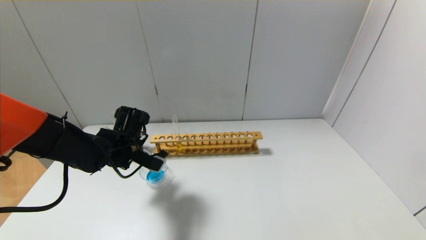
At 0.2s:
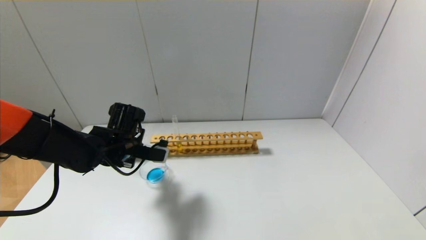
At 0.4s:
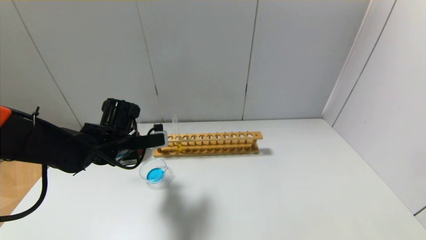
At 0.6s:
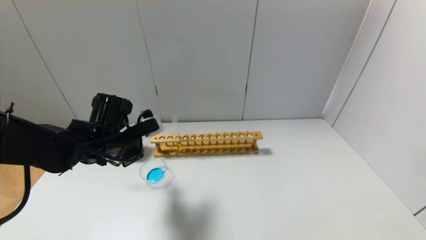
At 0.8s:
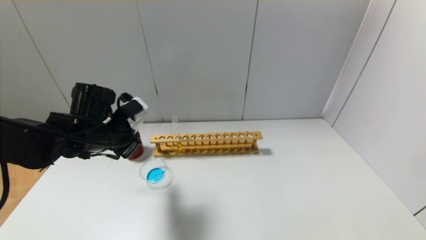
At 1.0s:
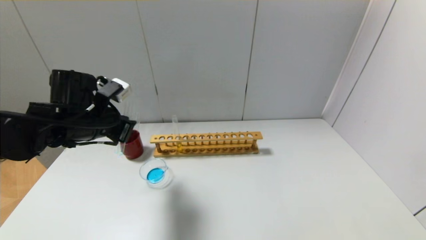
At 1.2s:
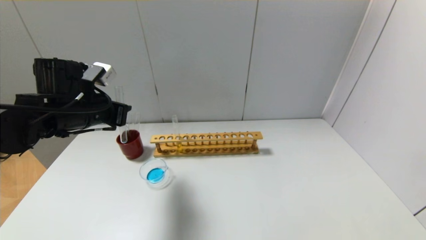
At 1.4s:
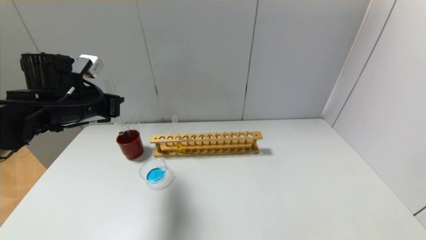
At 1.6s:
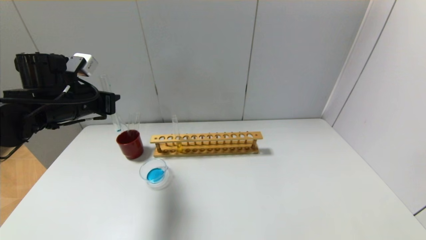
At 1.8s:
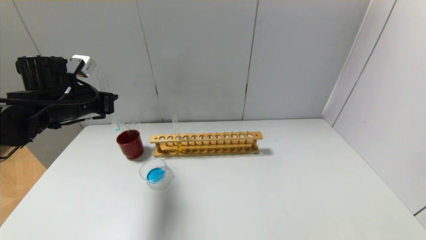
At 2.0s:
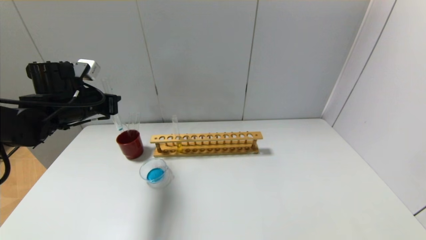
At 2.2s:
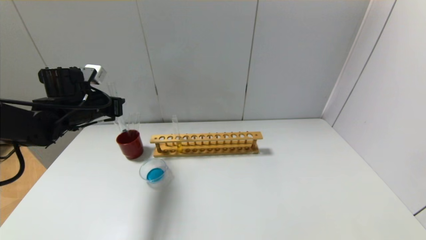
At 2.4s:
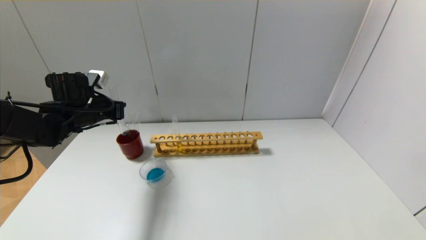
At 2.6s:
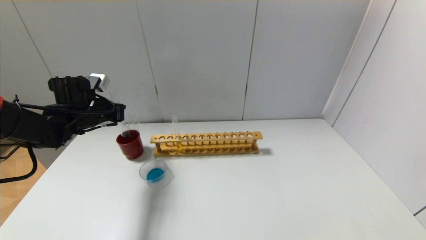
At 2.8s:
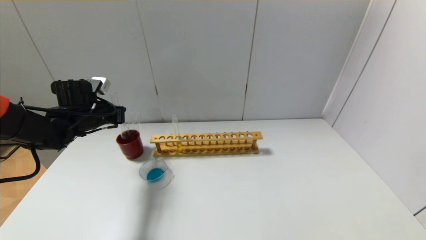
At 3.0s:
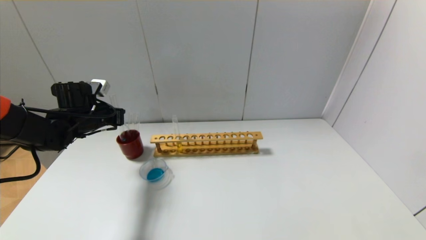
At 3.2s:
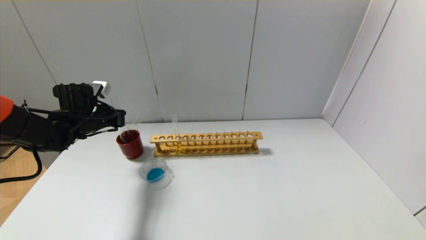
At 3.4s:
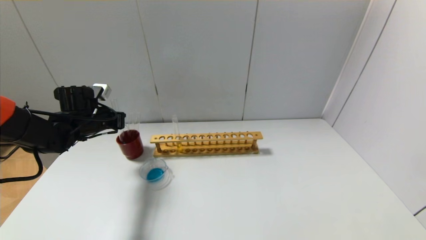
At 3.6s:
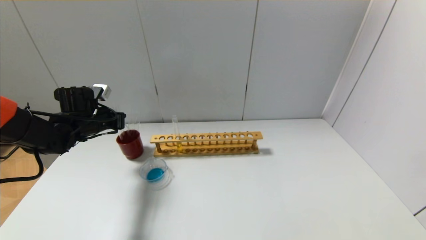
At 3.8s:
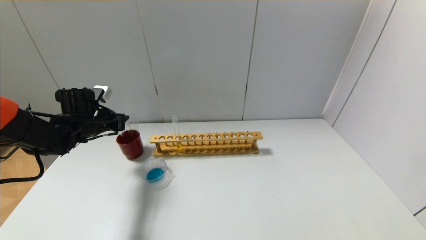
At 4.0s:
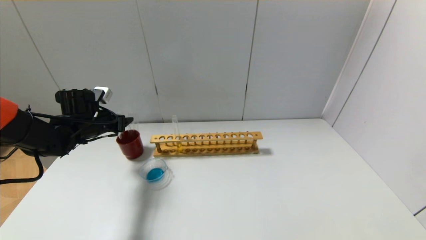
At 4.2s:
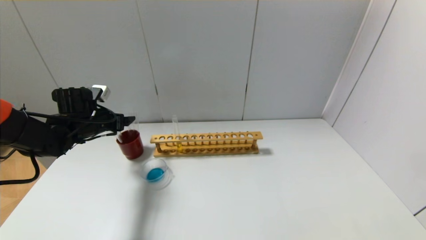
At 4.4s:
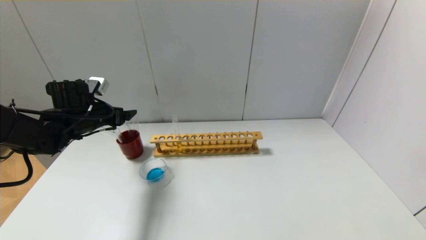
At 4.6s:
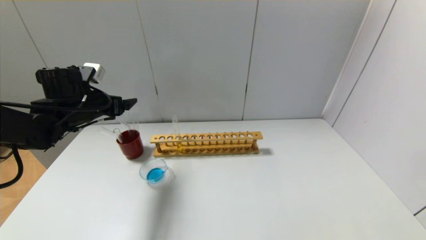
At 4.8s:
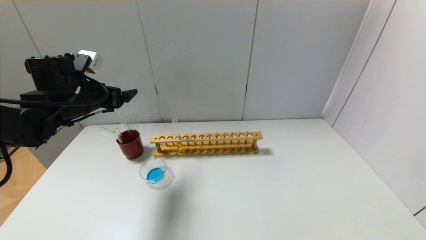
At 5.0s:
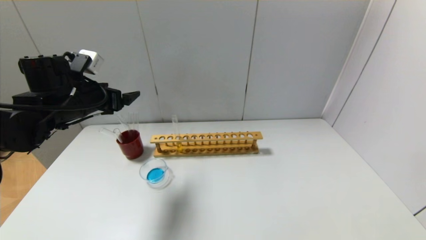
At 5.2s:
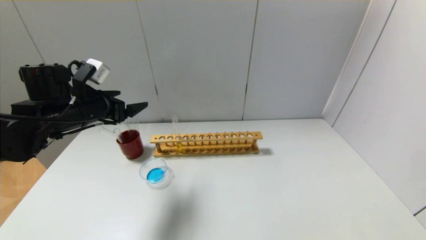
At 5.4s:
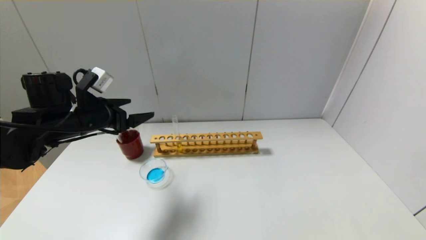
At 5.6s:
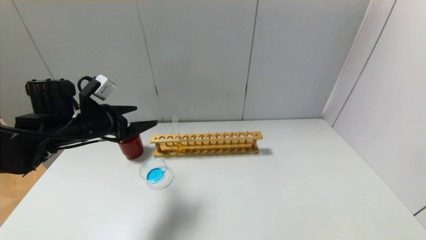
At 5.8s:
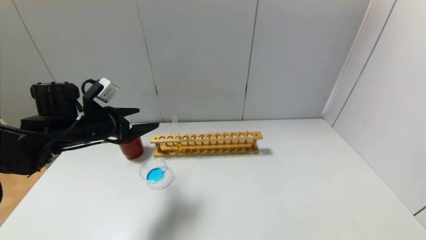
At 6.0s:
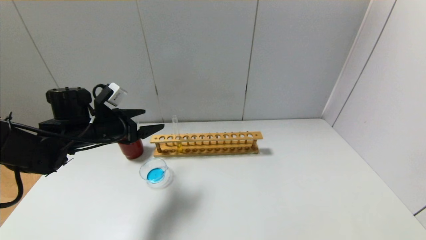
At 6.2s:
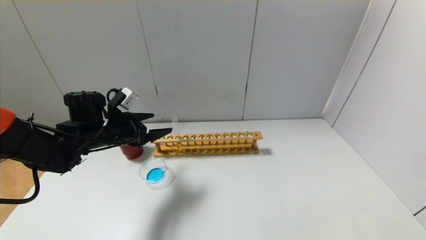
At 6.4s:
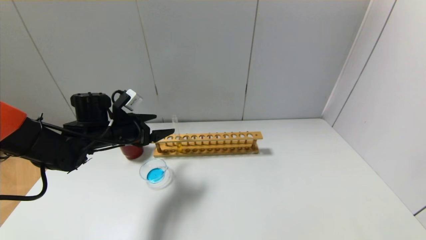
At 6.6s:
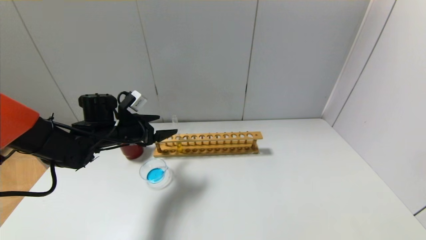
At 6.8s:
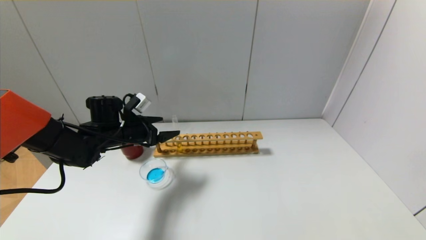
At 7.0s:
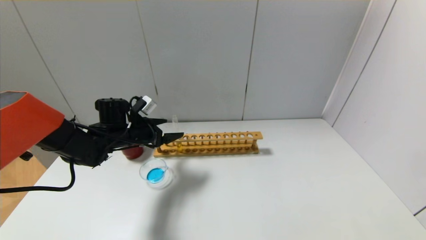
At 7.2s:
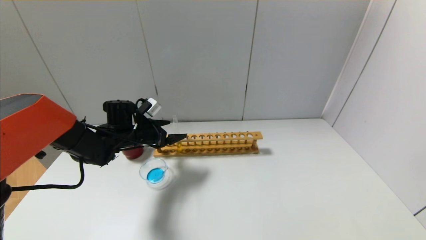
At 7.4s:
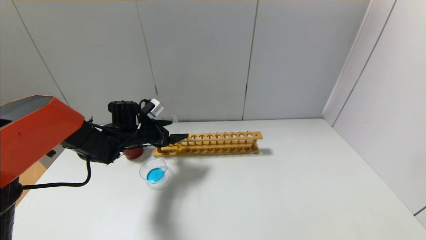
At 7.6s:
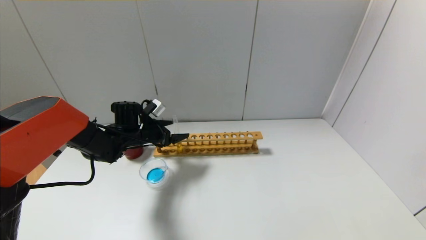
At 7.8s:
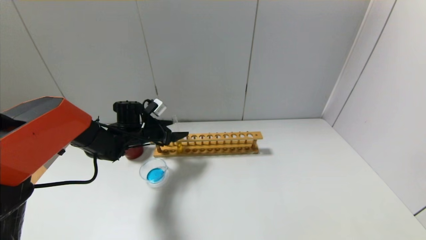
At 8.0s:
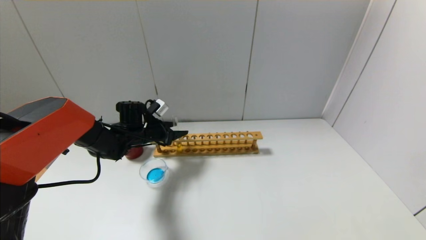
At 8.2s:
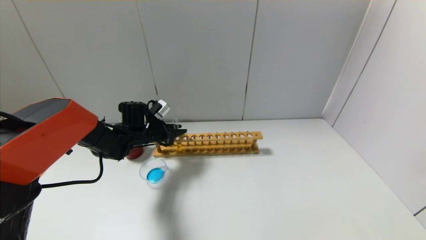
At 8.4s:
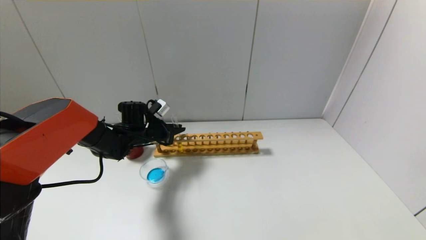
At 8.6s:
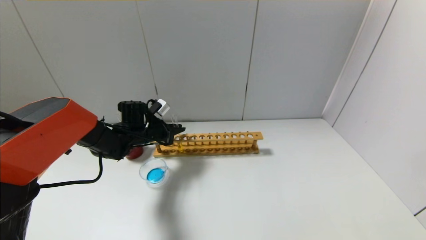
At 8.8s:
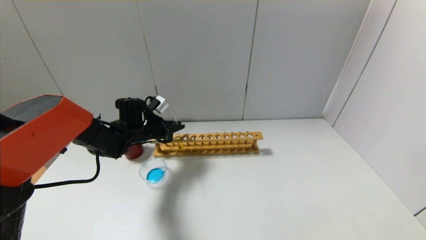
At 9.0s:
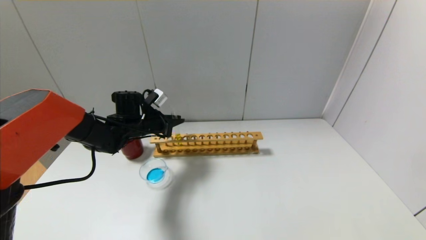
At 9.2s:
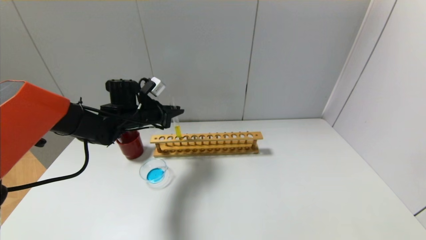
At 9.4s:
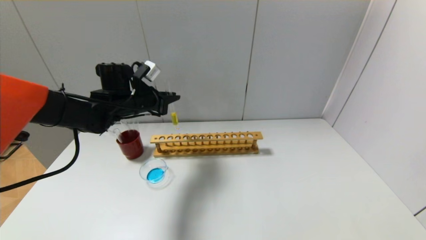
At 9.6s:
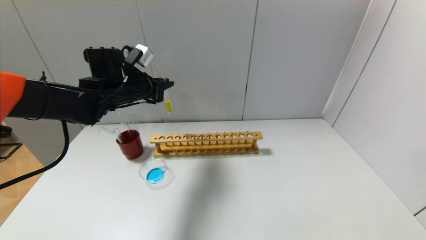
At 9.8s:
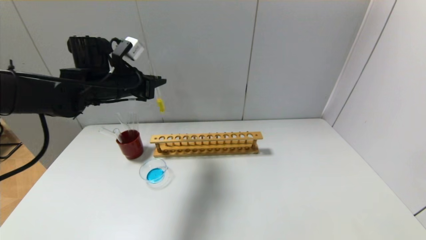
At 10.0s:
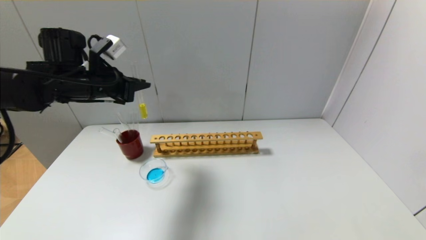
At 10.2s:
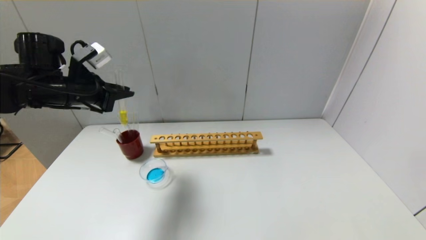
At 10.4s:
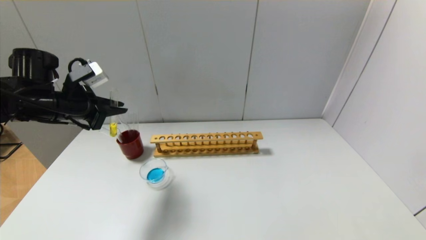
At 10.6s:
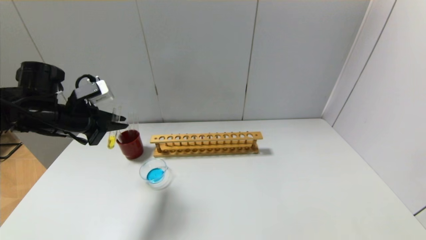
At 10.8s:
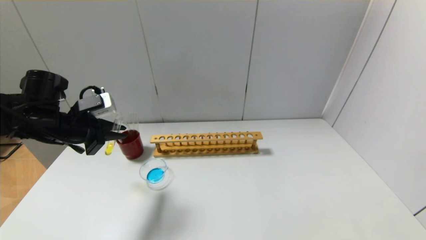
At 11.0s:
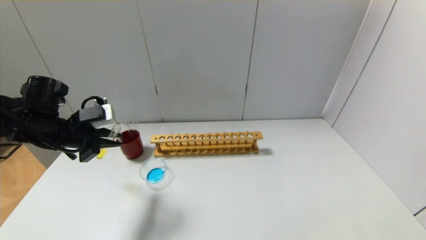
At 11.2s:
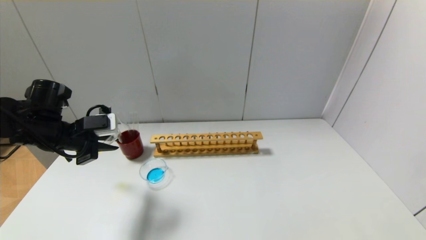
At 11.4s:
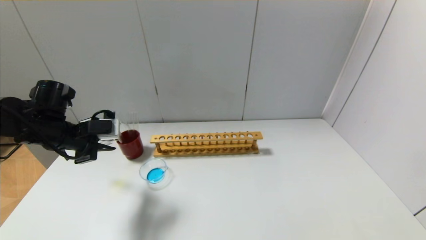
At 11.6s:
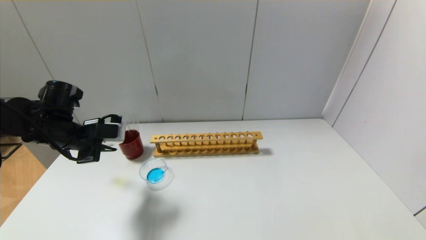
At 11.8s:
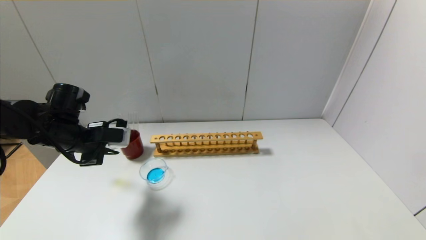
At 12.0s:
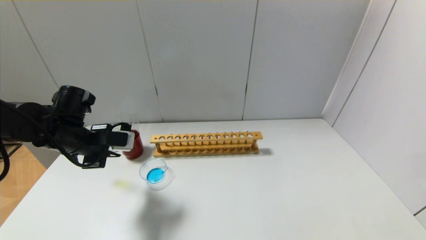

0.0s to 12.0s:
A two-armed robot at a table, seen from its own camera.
Step, 0.4s to 4.4s: Place the test tube into the brown cup with the left gripper.
Step, 4.6s to 8.2s: Grasp the yellow reagent with the left gripper.
0.0s to 1.6s: The left gripper is displaced upward and to the left by roughly 15 cm.
1.6s to 3.0s: The left gripper travels downward and forward by approximately 10 cm.
3.0s to 4.4s: The left gripper opens up.
4.4s to 6.0s: The left gripper ends up roughly 5 cm from where it was.
6.0s to 7.6s: The left gripper goes about 15 cm forward, downward and to the right.
7.6s to 9.0s: The left gripper closes.
9.0s to 10.4s: The left gripper moves to the left, backward and upward, some 20 cm.
10.4s to 12.0s: The left gripper travels downward by approximately 5 cm.

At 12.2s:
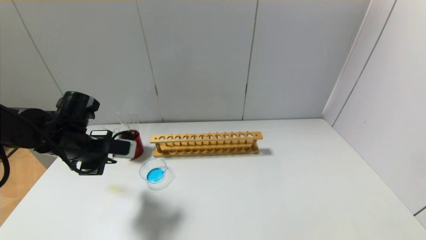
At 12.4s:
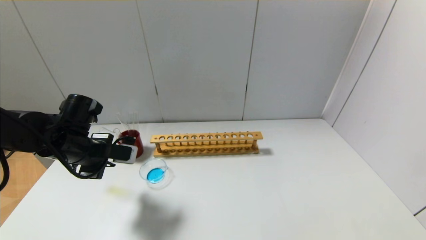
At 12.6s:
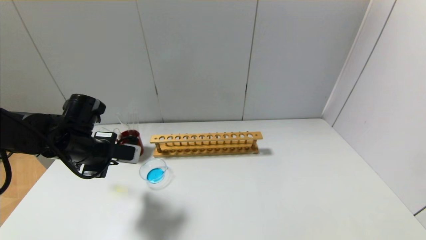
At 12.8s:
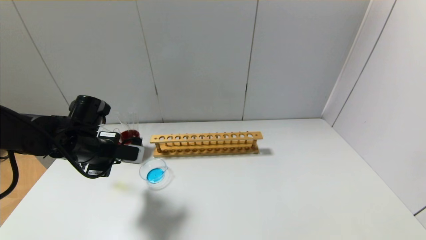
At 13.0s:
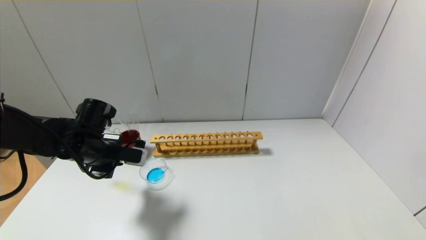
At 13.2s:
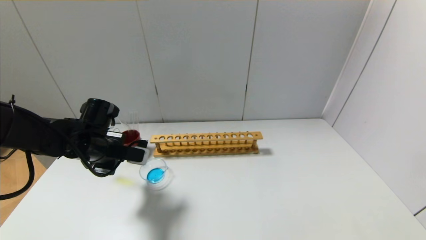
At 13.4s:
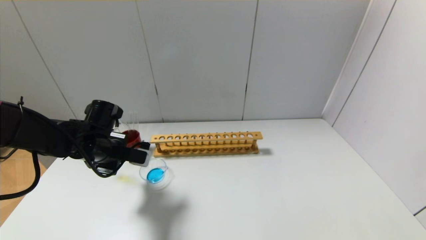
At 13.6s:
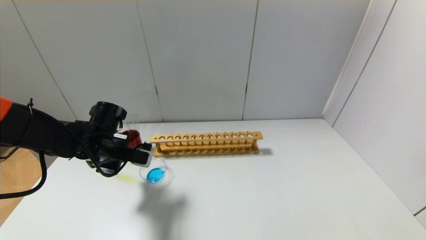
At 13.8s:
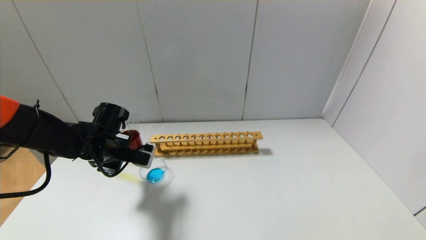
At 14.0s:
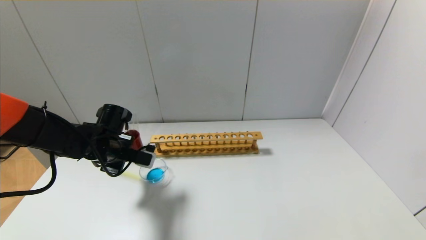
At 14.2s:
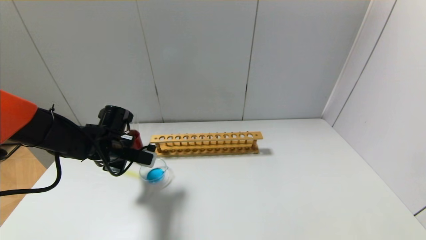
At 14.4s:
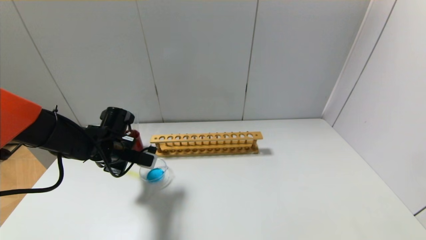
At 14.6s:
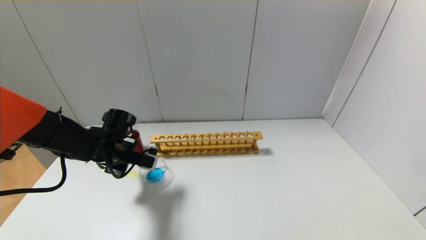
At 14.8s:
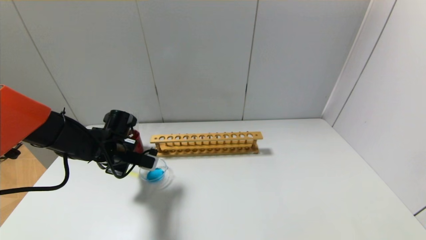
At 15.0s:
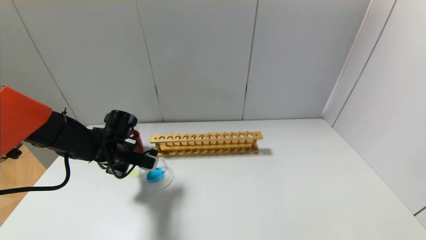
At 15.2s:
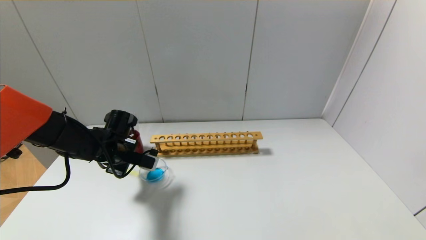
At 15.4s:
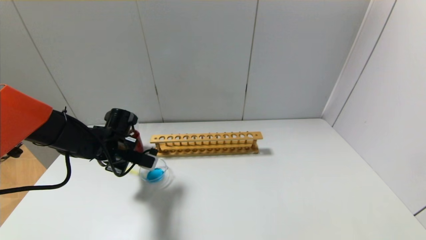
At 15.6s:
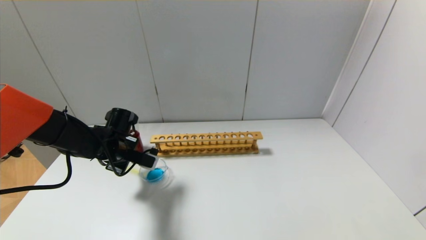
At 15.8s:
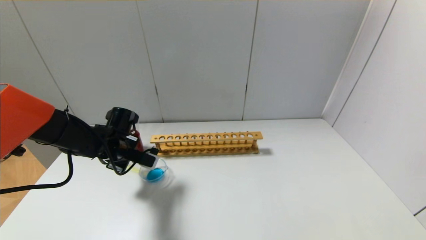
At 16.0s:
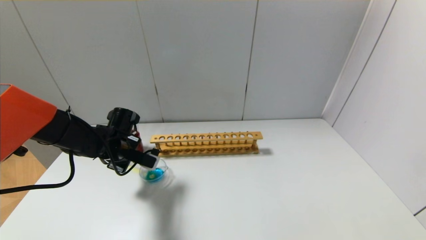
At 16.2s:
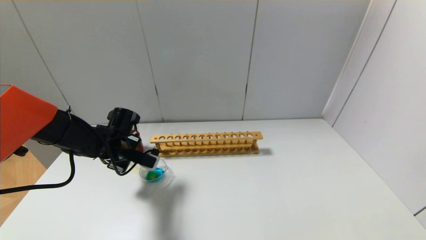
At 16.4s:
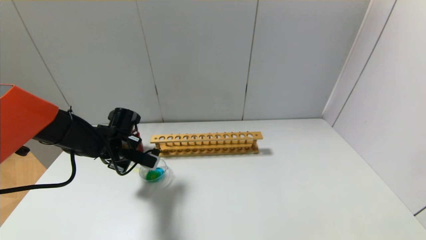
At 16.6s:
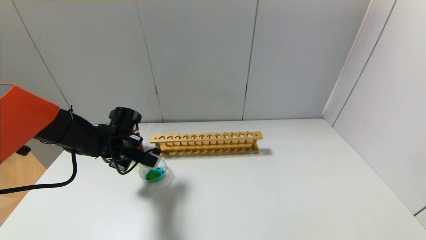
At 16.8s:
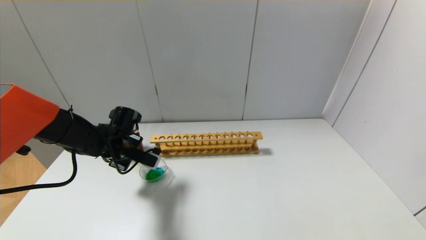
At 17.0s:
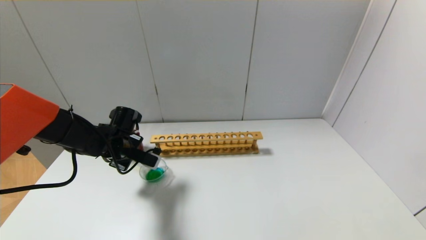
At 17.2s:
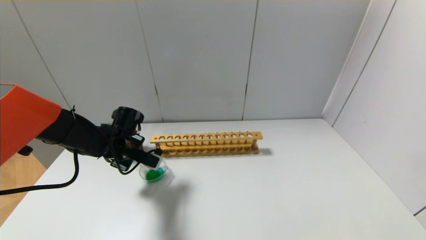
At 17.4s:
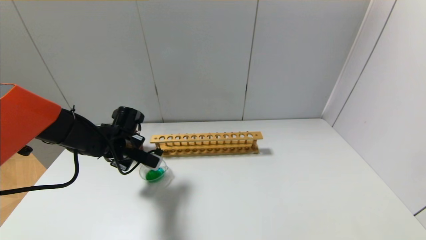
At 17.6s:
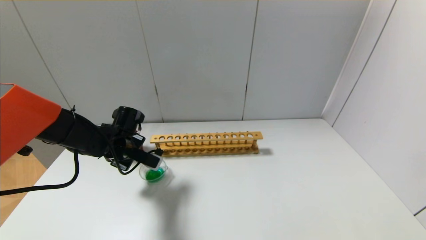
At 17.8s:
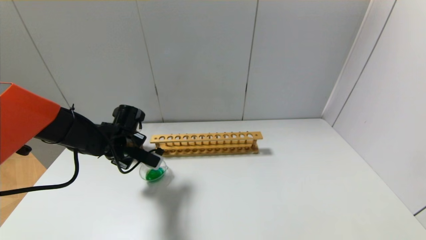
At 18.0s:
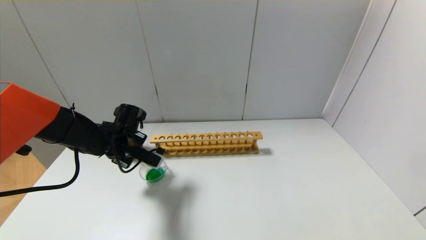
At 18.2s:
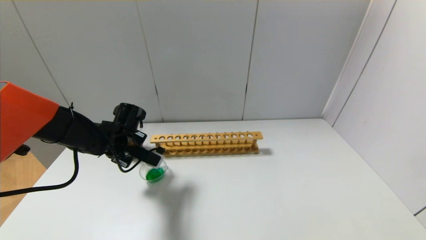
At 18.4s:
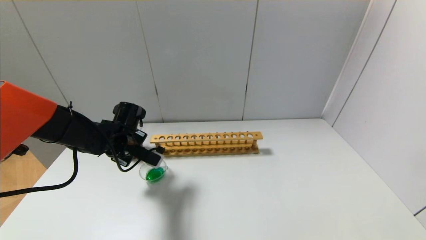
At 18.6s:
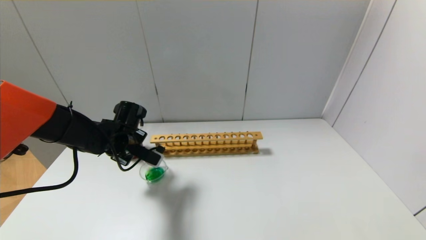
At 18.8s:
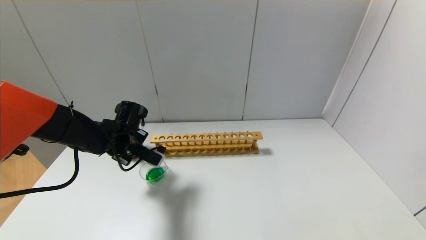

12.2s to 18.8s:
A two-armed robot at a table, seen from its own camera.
12.2s to 13.8s: The left gripper shifts by roughly 5 cm.
13.8s to 18.8s: The grippers make only small movements.
